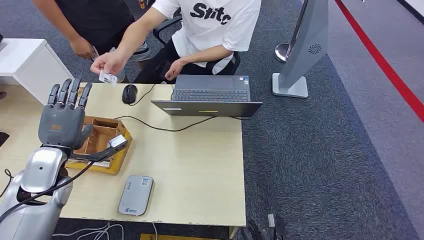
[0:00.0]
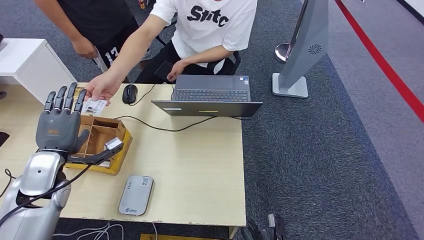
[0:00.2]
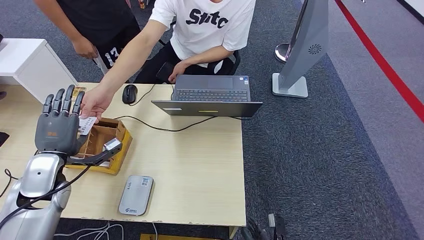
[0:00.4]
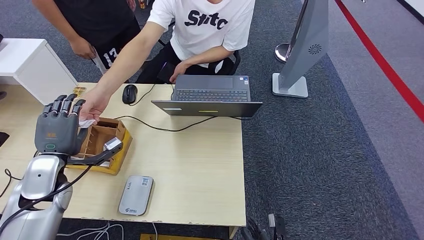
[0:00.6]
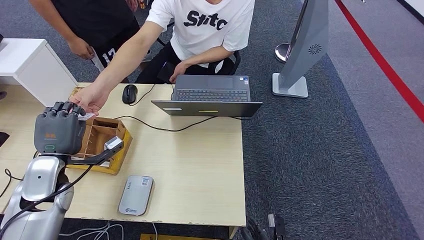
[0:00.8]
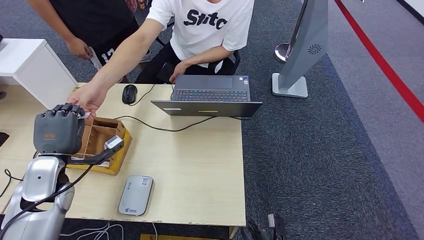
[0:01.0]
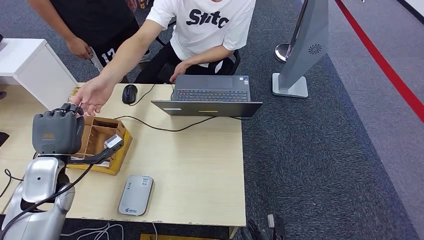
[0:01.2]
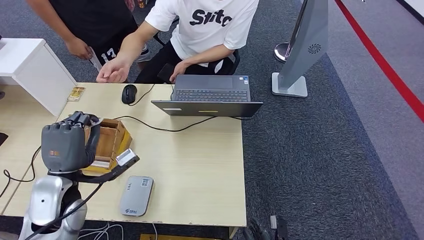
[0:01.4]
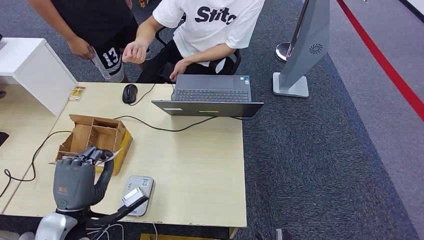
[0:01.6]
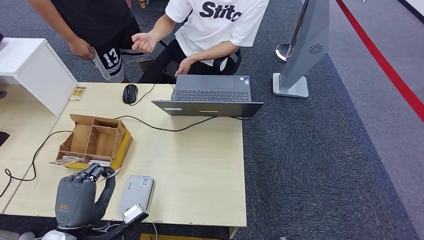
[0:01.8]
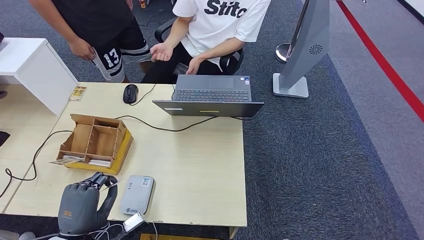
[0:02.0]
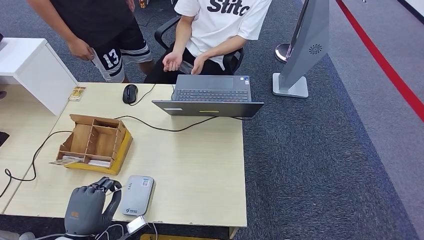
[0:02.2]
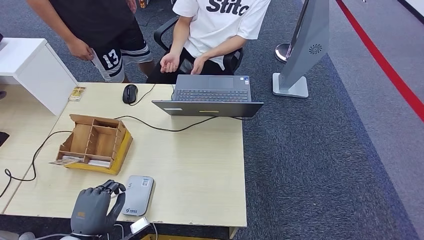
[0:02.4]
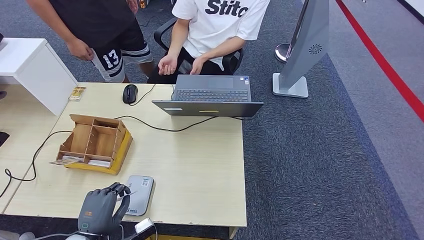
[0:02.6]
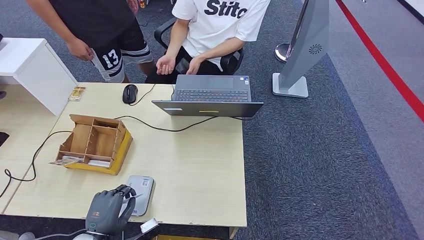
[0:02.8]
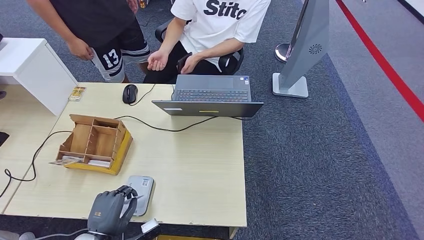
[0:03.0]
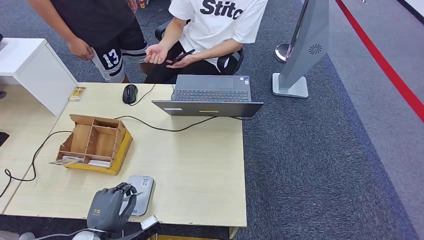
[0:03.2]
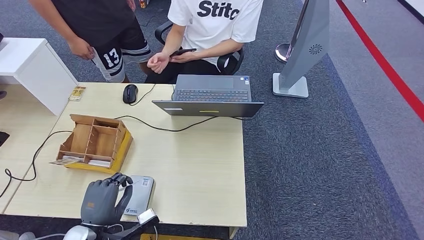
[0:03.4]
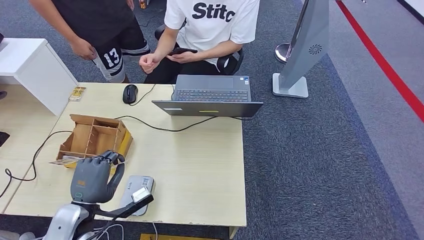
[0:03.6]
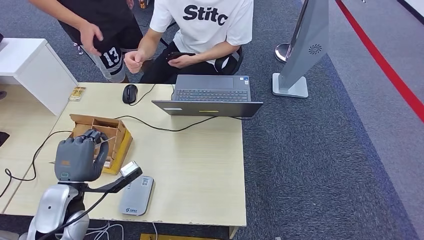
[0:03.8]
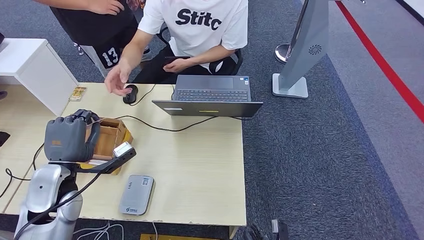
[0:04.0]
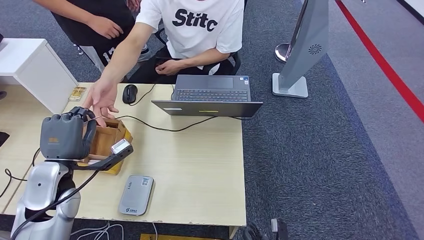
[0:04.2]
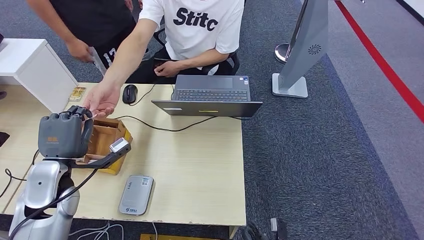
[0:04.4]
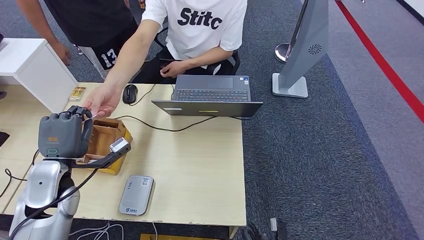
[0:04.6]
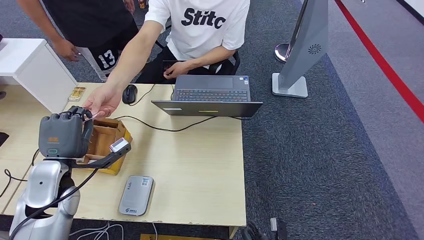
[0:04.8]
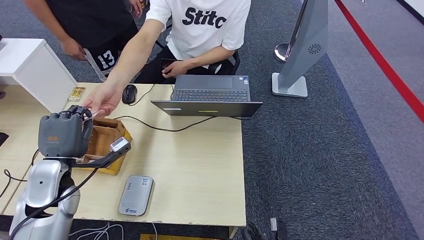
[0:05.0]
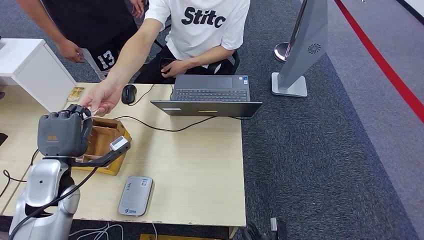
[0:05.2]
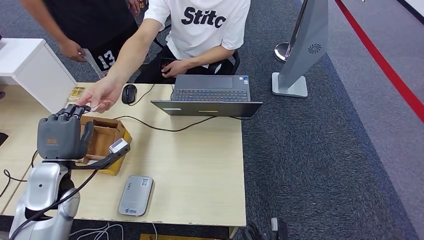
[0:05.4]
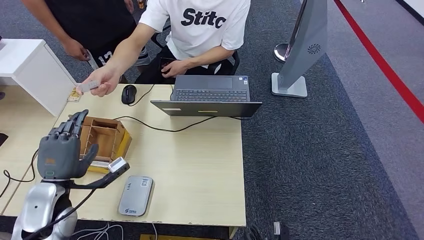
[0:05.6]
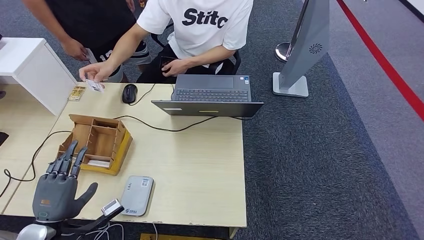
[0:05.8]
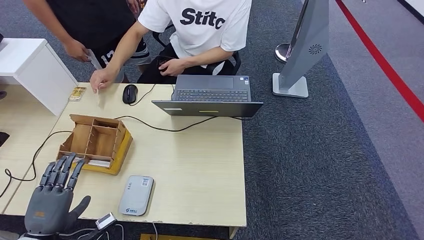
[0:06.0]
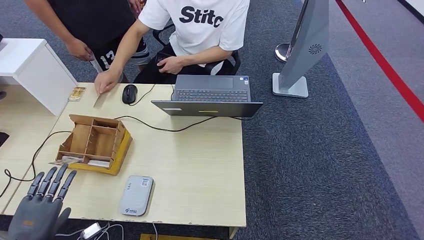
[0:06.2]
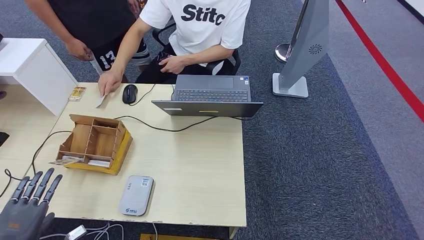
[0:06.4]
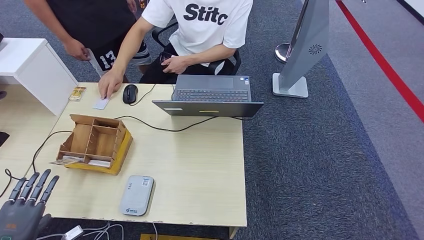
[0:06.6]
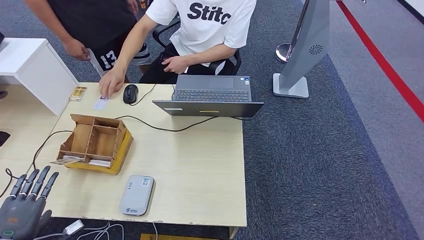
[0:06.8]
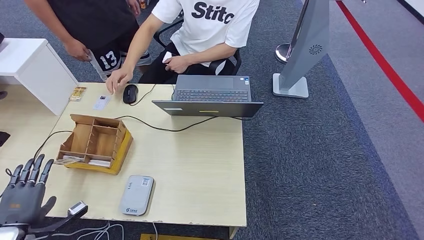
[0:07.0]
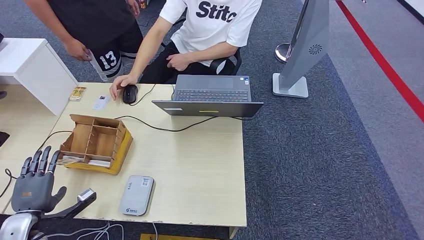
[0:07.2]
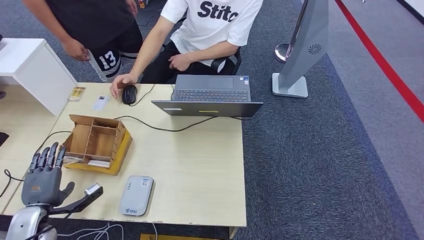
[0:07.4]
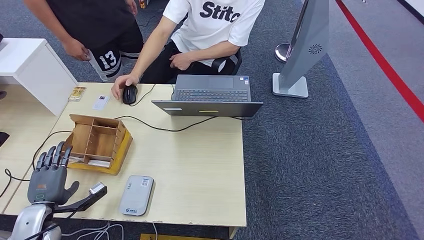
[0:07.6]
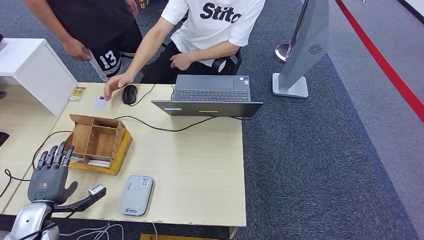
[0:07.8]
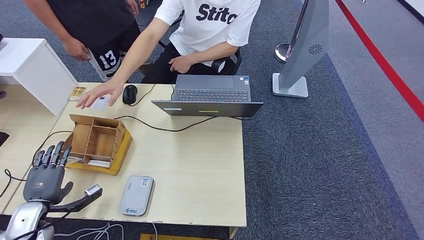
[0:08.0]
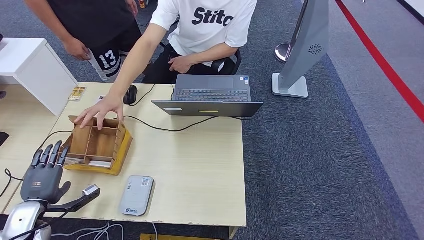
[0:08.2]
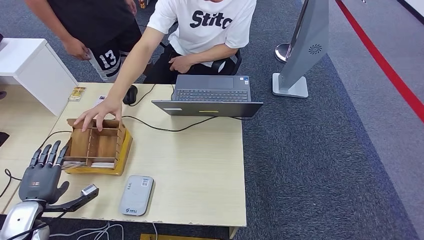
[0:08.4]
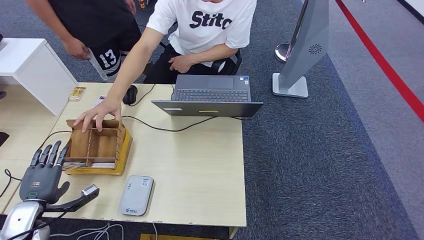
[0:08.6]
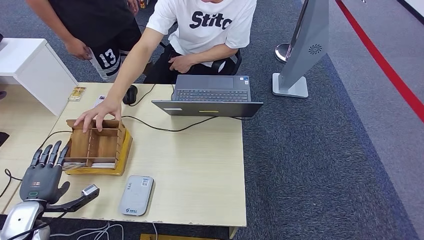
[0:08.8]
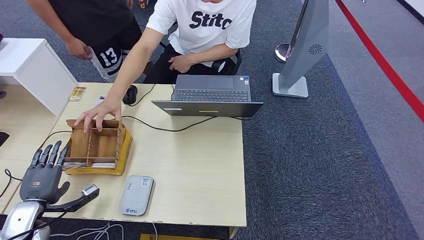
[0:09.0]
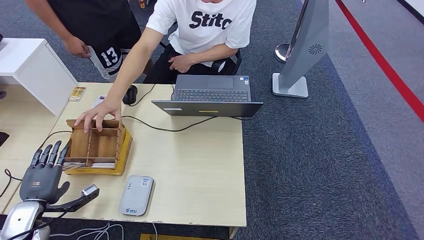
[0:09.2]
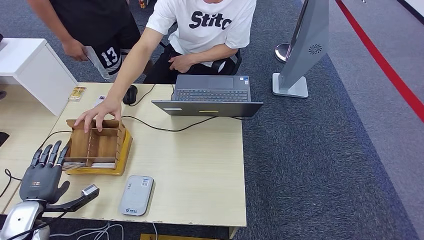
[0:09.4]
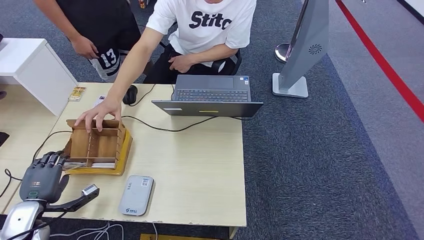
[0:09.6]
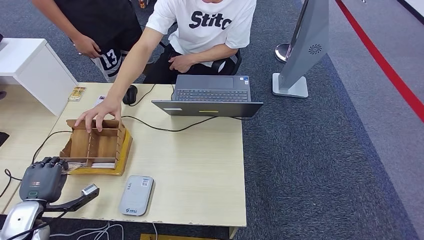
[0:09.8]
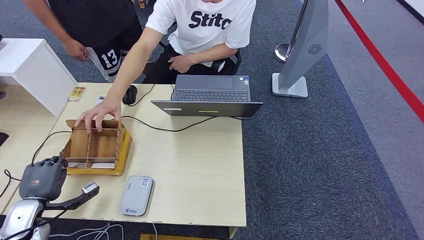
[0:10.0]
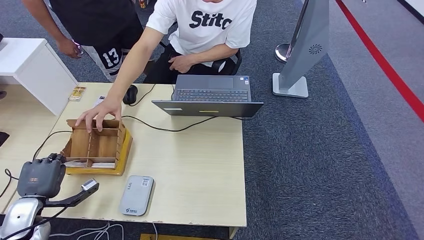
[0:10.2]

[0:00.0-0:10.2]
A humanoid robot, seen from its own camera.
Step, 0:00.0 to 0:02.0: Take the ID card from the person's hand.
Step, 0:02.4 to 0:03.4: Place the ID card on the card reader.
Step, 0:03.6 to 0:06.0: Hand the ID card to the person.
0:04.4 to 0:05.8: The right hand heads backward, covering roughly 5 cm, while the left hand shifts about 15 cm backward and downward.
0:05.8 to 0:07.2: The left hand heads to the left, covering some 10 cm.
0:07.2 to 0:08.8: There are only small adjustments of the hands.
0:08.8 to 0:10.2: Neither hand changes place.

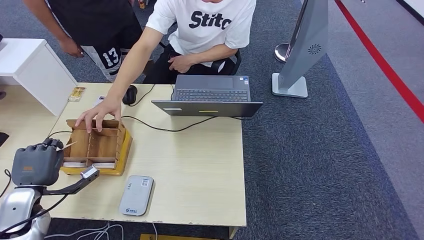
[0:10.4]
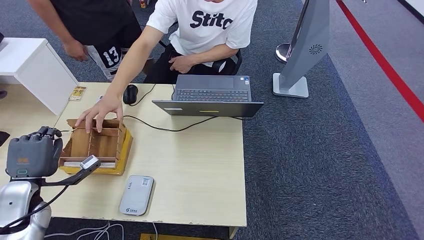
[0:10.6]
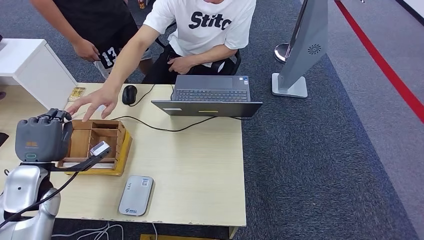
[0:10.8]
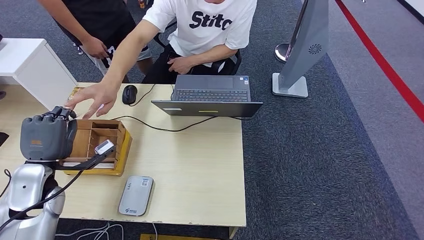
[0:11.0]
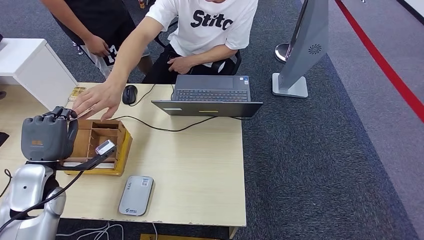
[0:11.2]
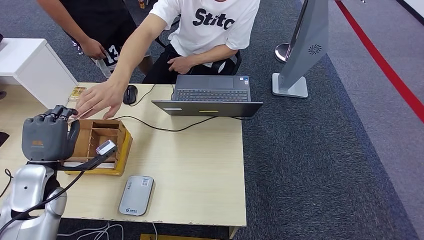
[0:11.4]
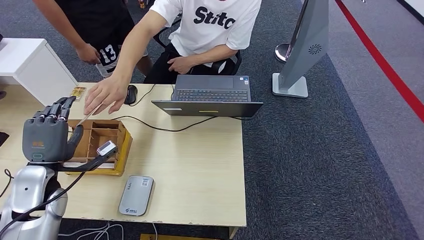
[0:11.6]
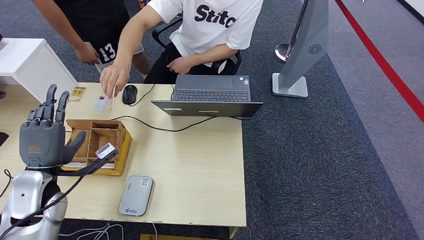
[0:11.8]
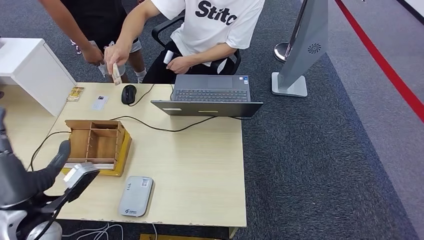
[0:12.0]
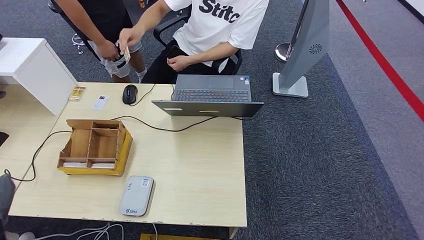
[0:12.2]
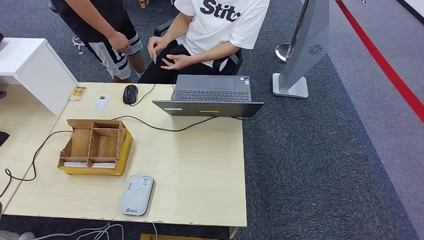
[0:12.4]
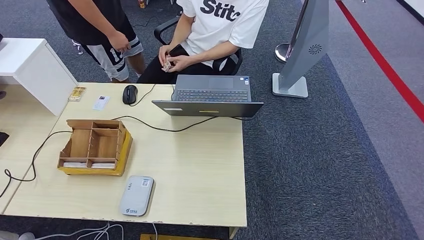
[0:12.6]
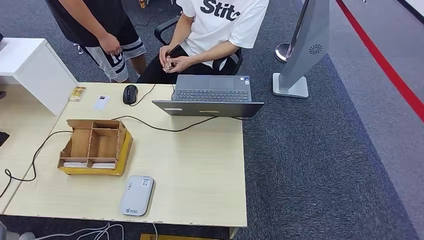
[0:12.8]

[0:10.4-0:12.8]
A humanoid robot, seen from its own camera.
Step, 0:10.8 to 0:12.6: Hand the room key to the person.
0:10.4 to 0:11.6: The left hand travels upward and to the right by roughly 10 cm.
